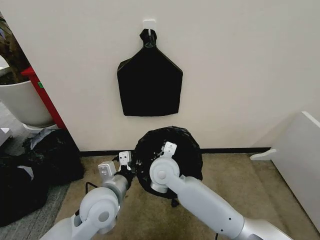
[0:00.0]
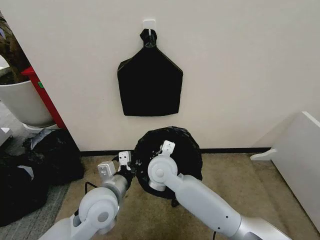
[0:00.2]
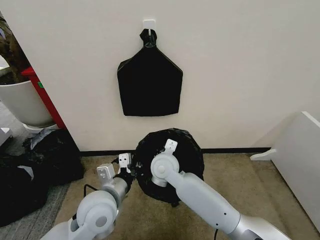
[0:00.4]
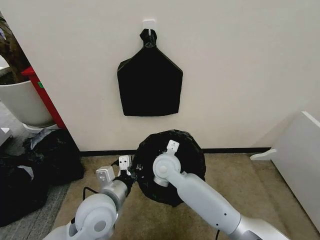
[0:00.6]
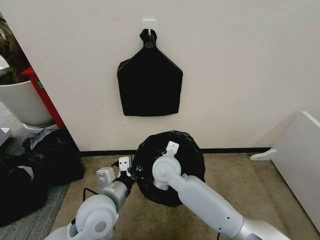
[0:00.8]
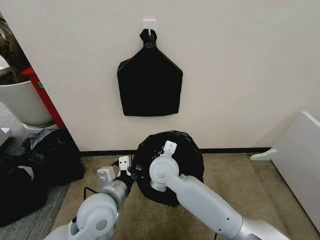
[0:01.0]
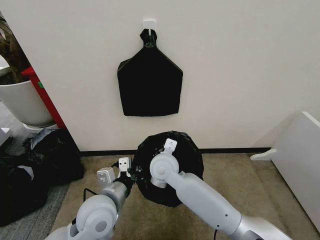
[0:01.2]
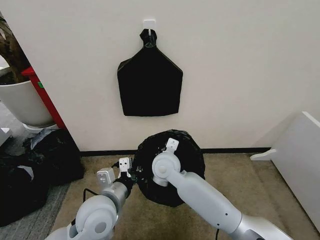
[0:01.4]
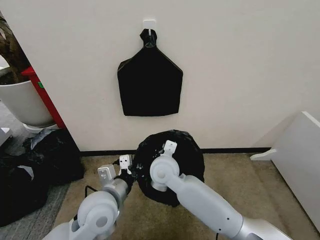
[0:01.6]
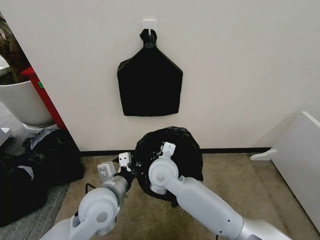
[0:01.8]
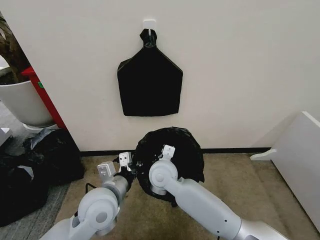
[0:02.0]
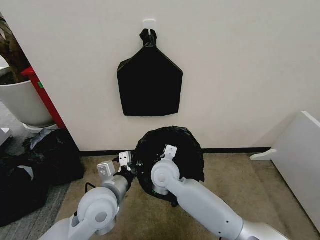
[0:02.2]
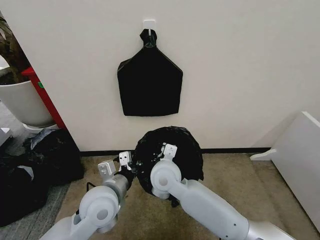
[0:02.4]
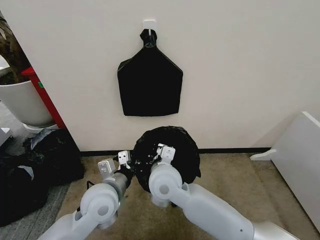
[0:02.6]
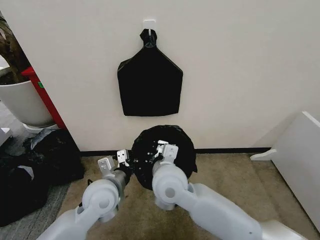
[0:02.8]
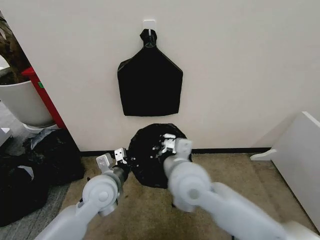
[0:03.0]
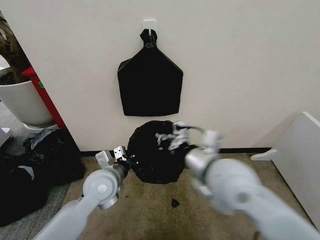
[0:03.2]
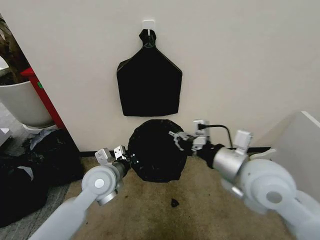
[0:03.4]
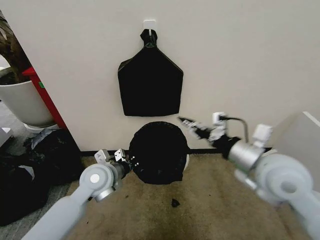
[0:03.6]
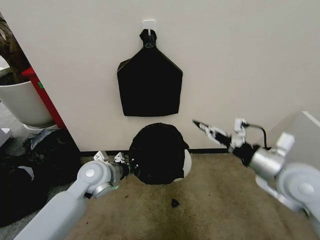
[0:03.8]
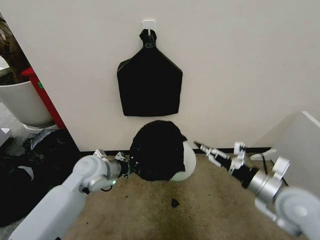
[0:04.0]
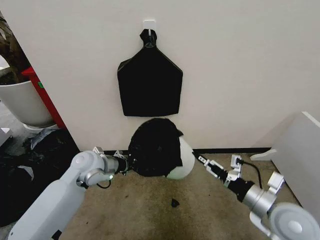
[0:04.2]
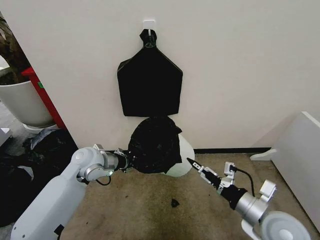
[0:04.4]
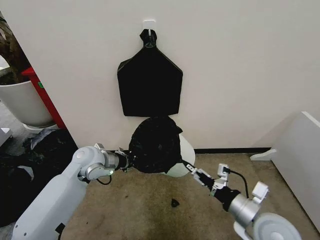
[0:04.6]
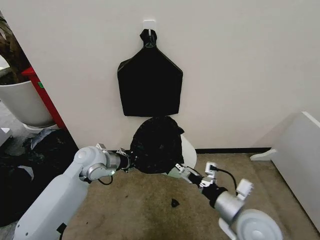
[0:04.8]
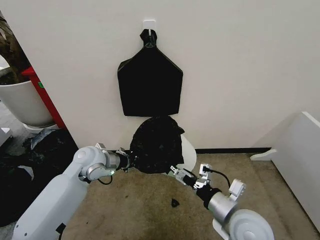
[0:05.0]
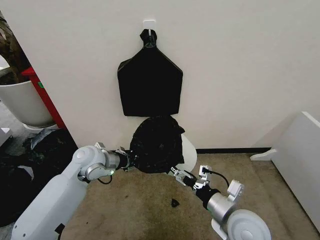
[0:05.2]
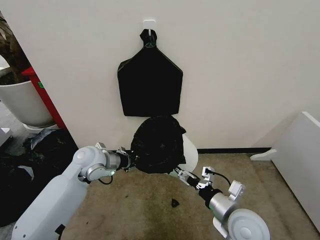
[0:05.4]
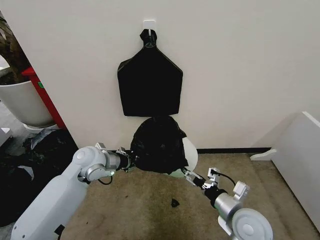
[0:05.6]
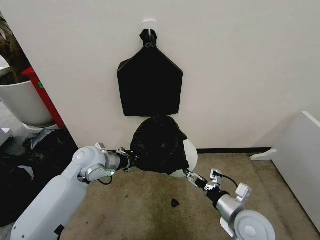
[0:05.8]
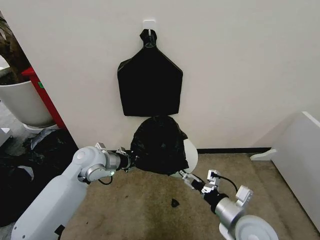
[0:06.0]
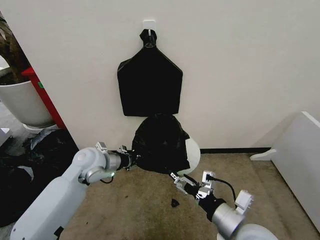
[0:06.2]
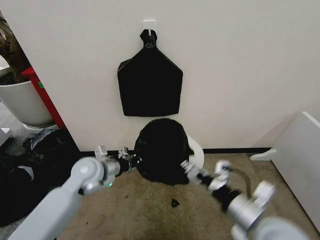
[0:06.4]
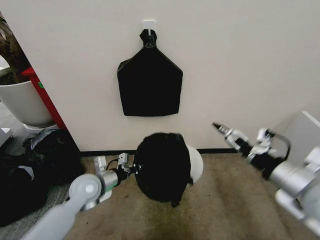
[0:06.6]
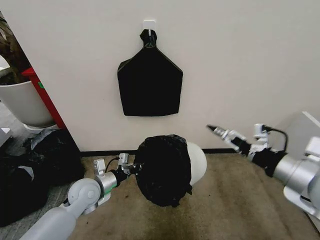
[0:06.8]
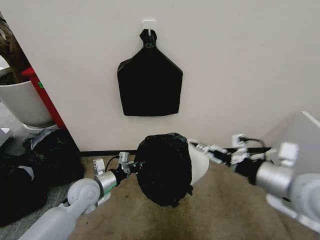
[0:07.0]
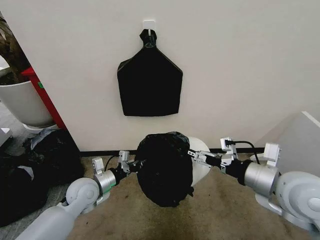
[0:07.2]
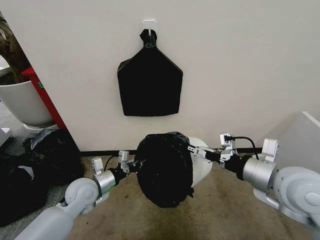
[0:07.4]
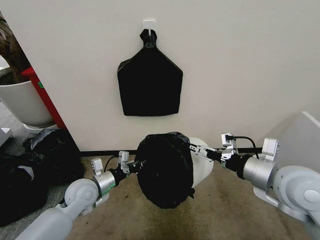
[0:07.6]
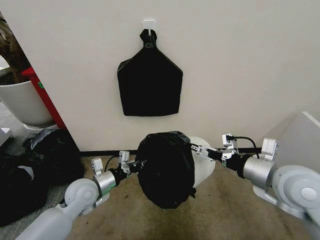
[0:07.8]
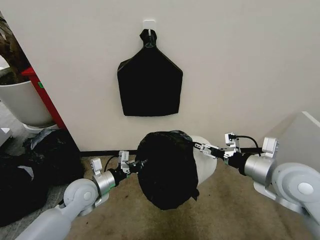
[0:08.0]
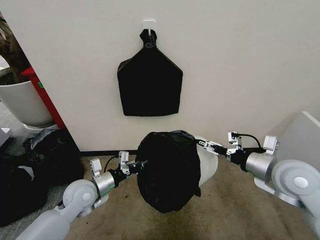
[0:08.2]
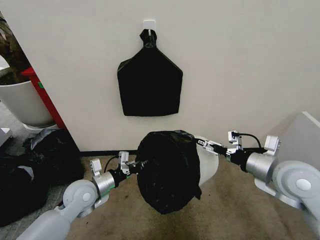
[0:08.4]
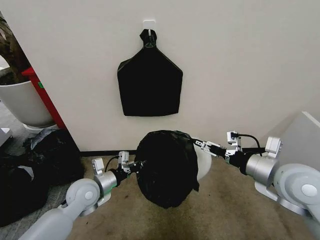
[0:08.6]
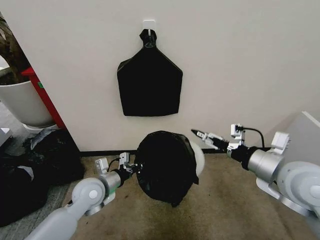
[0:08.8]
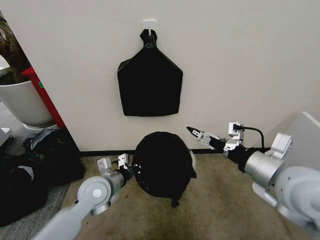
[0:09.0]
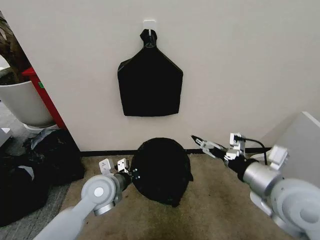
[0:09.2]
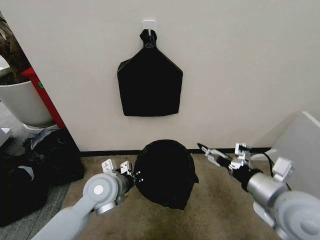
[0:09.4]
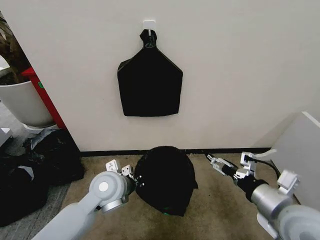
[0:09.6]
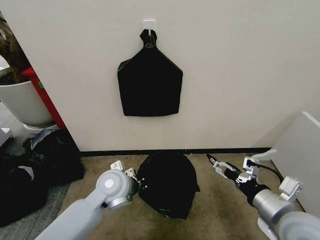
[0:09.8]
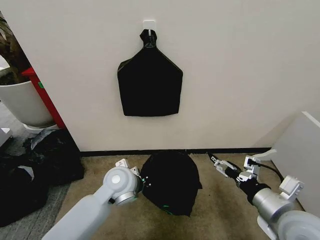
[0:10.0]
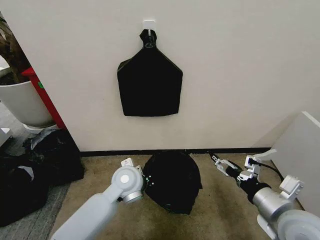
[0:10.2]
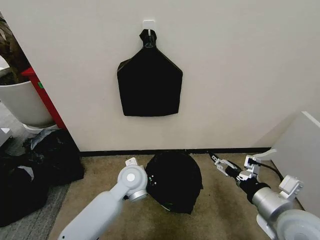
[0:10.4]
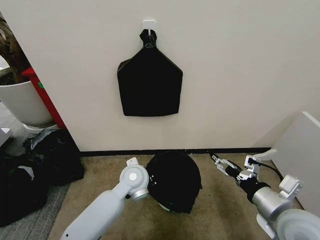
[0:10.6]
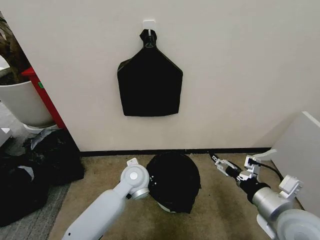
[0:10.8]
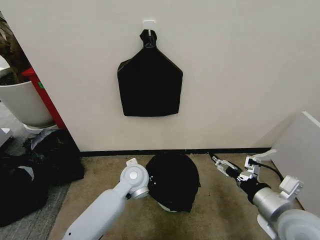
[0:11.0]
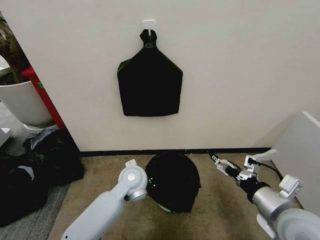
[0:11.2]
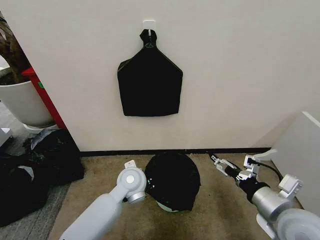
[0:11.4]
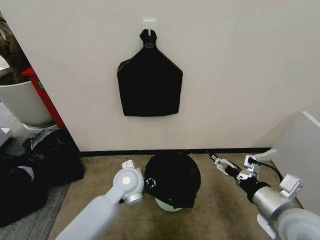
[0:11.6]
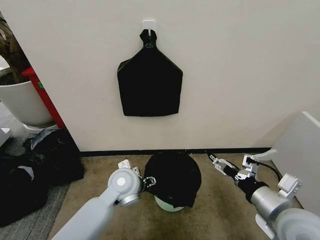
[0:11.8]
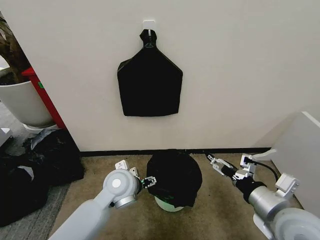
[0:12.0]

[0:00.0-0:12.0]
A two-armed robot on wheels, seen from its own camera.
Task of the whole recording: Place the garbage bag over the trash bin.
0:00.0 to 0:01.6: The grippers make only small movements.
0:01.6 to 0:03.0: The right gripper is displaced upward and backward by about 10 cm. Meanwhile the left gripper shifts some 5 cm forward.
0:03.0 to 0:04.4: The left gripper goes some 10 cm forward and to the left. The right gripper heads to the right, covering approximately 25 cm, and opens.
0:04.4 to 0:06.0: The right gripper heads to the left, covering roughly 5 cm.
0:06.0 to 0:07.6: The right gripper heads upward, forward and to the right, covering some 15 cm. The left gripper is displaced downward and backward by about 10 cm.
0:07.6 to 0:09.0: The left gripper is displaced to the right by approximately 5 cm.
0:09.0 to 0:10.4: The right gripper travels downward and backward by roughly 10 cm. The left gripper goes roughly 10 cm to the right.
0:10.4 to 0:12.0: The left gripper opens.

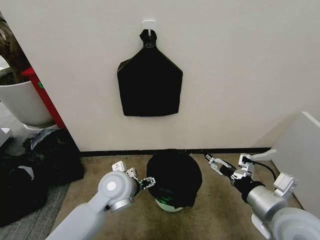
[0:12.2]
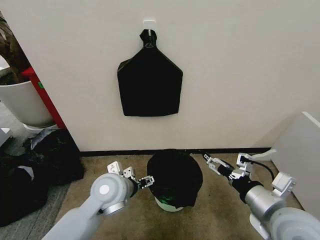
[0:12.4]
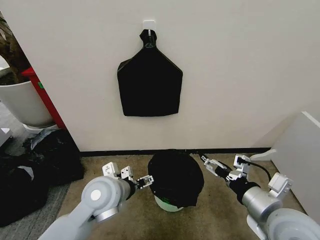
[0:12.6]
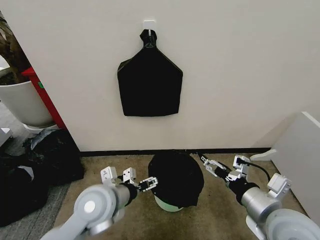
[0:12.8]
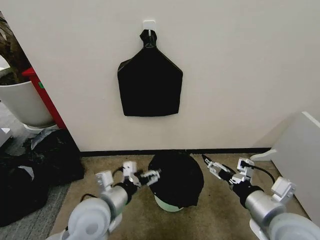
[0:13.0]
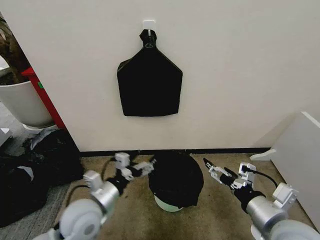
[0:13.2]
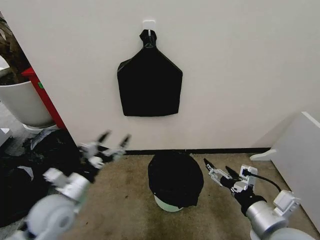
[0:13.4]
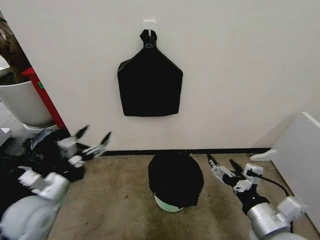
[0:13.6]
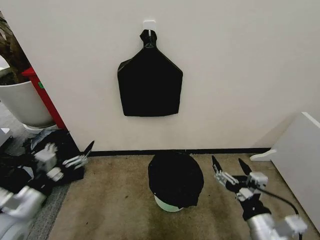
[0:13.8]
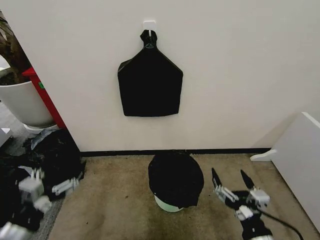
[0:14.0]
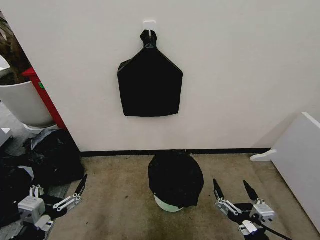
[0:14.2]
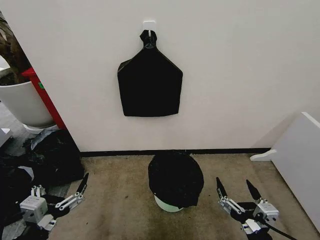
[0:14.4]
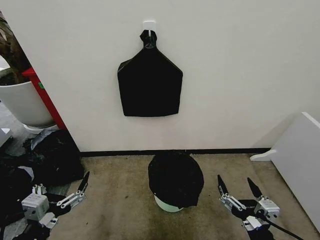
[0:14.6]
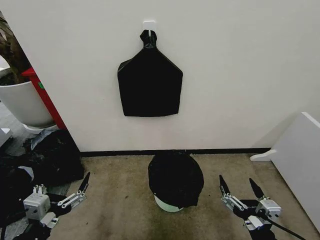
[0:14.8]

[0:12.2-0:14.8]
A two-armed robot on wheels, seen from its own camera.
Task of the whole recording: Place the garbage bag over the trash bin.
0:12.2 to 0:13.4: The left gripper goes about 15 cm to the left and backward.
0:13.4 to 0:14.8: The right gripper goes roughly 10 cm backward and downward; the left gripper moves backward, approximately 15 cm.
